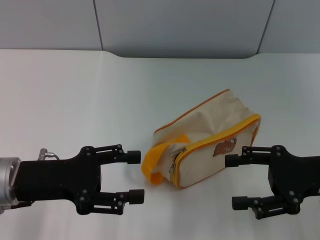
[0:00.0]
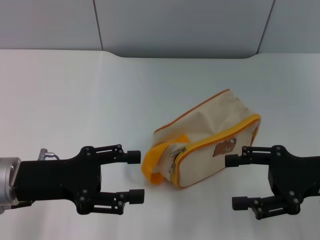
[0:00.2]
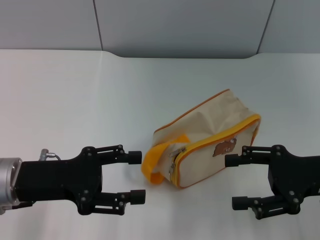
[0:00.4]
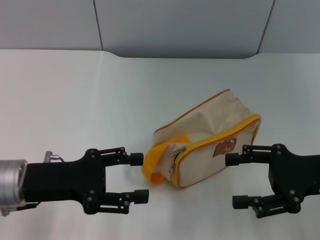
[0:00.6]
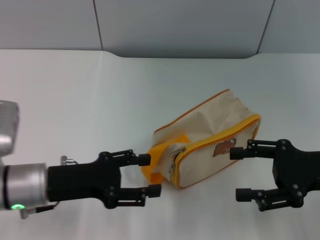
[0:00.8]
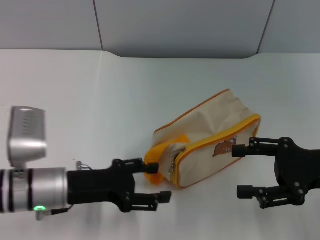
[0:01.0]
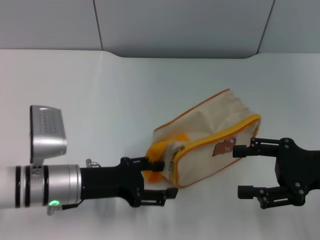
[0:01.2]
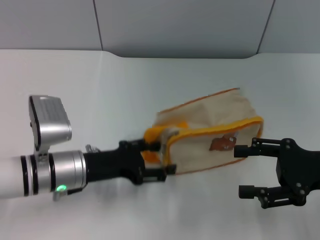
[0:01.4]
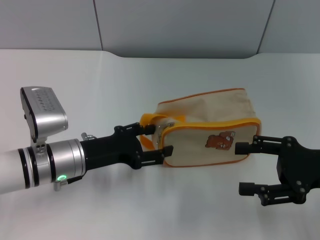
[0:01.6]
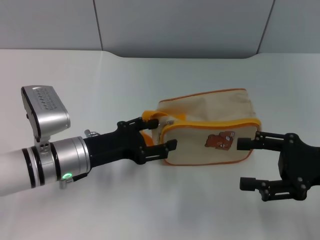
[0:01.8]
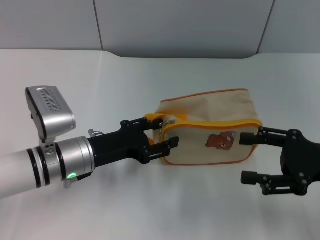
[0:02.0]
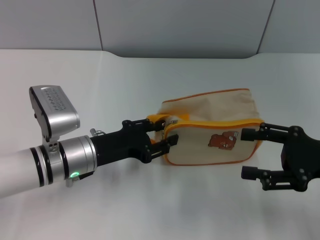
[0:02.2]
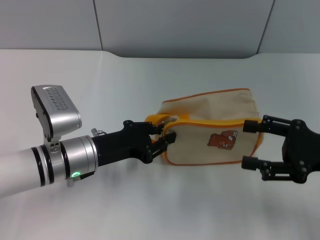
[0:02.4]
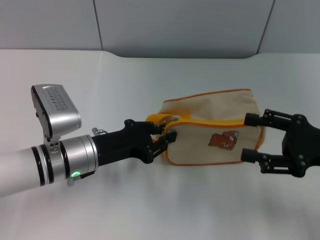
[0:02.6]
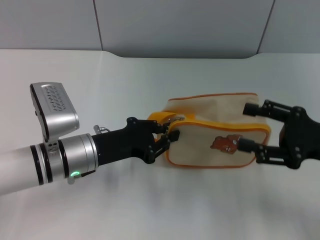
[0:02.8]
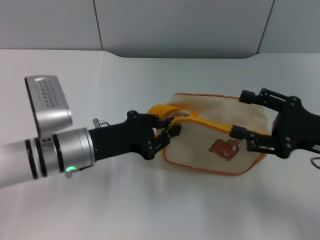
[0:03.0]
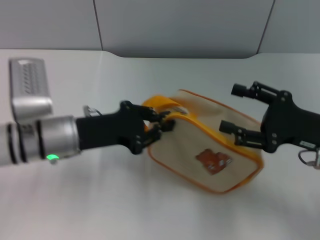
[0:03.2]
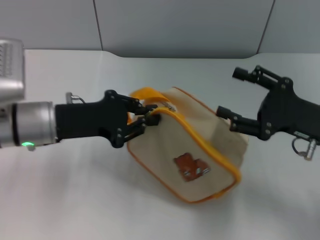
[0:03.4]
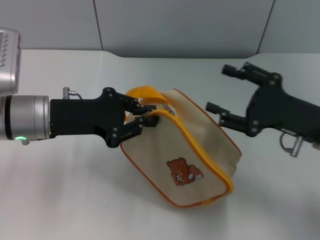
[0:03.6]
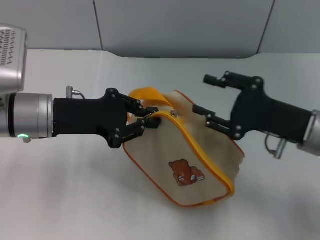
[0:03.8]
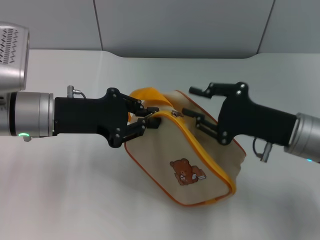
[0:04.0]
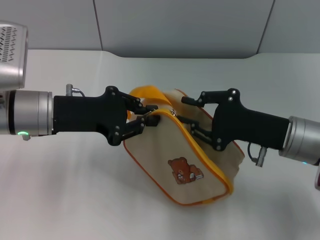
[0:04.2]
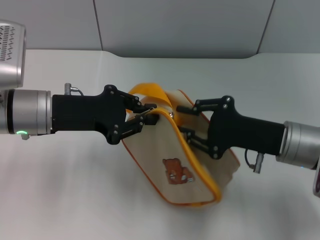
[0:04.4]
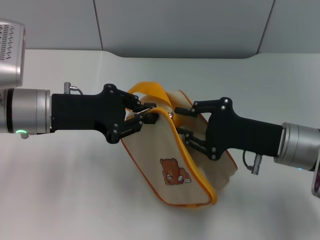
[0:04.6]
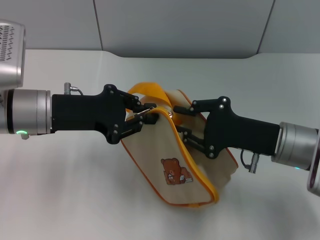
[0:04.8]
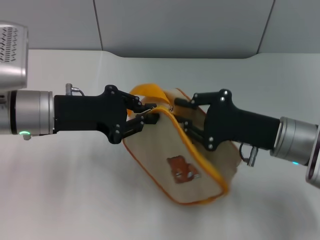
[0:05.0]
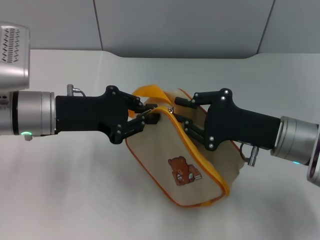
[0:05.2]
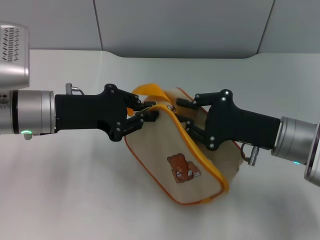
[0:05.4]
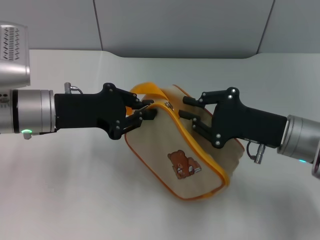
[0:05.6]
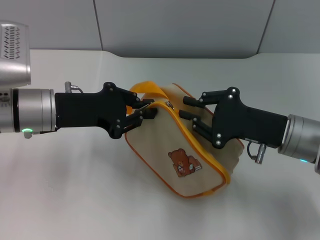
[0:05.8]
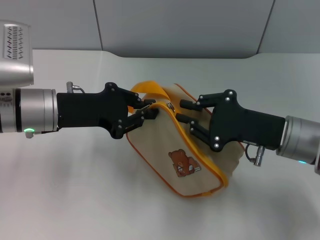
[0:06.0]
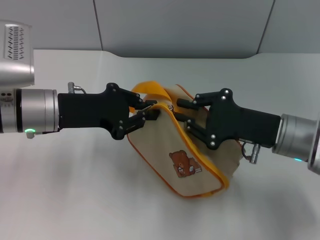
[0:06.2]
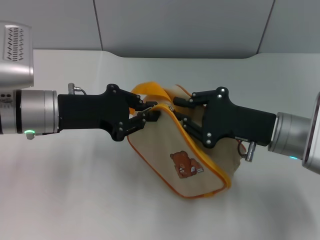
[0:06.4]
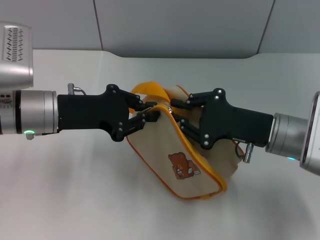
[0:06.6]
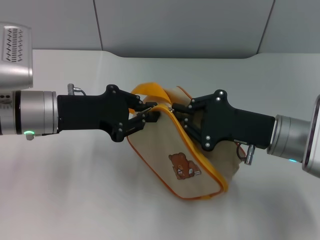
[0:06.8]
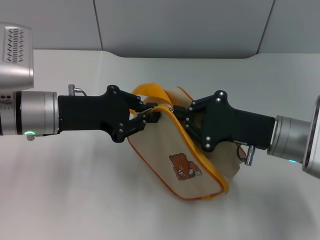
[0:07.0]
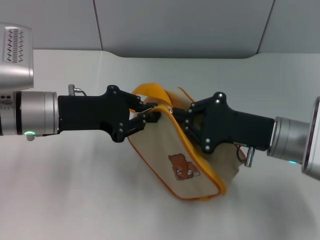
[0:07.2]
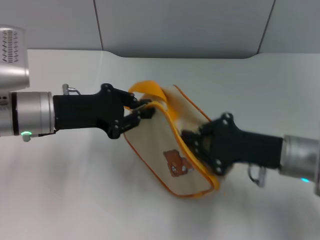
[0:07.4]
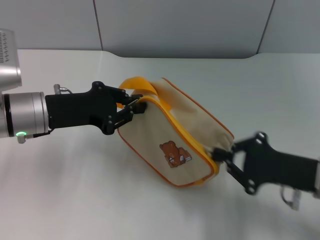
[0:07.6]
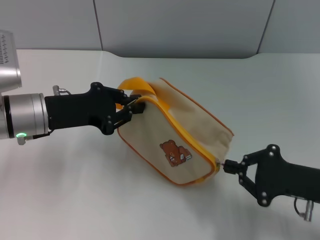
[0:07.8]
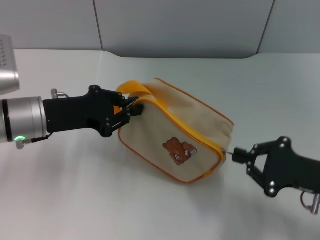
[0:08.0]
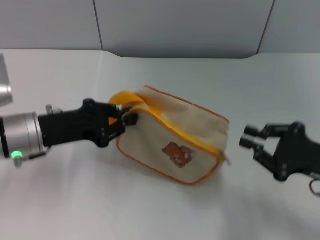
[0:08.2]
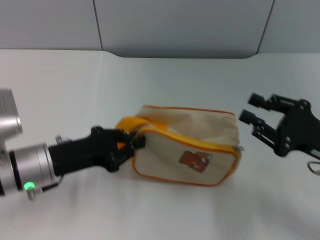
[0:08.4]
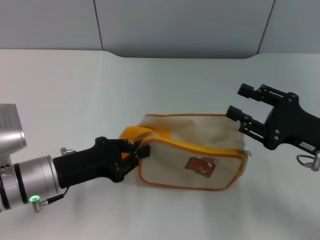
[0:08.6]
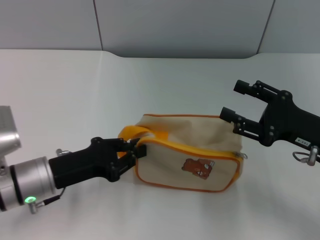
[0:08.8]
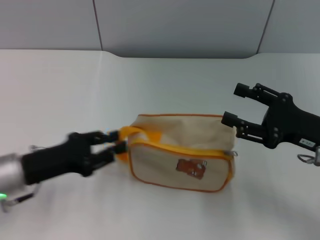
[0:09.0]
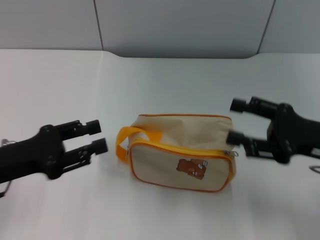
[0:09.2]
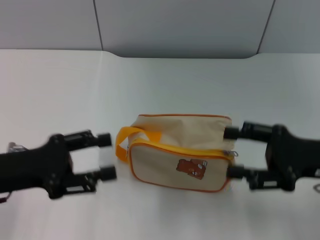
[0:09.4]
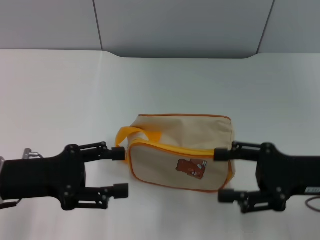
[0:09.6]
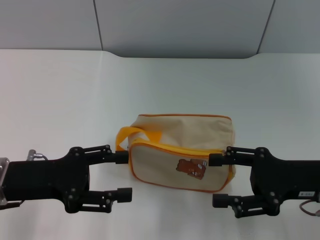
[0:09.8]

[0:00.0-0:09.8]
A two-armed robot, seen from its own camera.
Step, 0:00.0 to 0:03.0: Pick up the bag with left gripper.
Step, 0:03.4 to 0:08.0: Unzip the zipper of bag with right gripper.
Step, 0:08.2 to 0:09.0: Place the bag on the table with left gripper.
0:00.0 to 0:01.4: The left gripper heads to the right and downward, covering some 10 cm.
0:01.4 to 0:02.8: The left gripper closes up.
0:02.8 to 0:04.2: The left gripper moves upward, approximately 10 cm. The right gripper is displaced to the left by about 10 cm, and closes its fingers.
0:04.2 to 0:07.0: The grippers move only a little.
0:07.0 to 0:08.4: The left gripper moves downward and backward, roughly 10 cm. Meanwhile the right gripper travels to the right and backward by roughly 10 cm.
0:08.4 to 0:09.8: The right gripper opens its fingers. The left gripper shifts by some 5 cm, and opens.

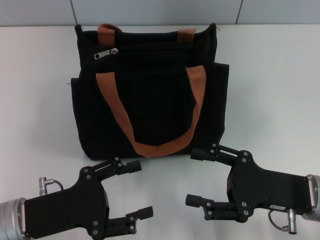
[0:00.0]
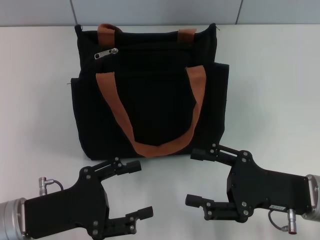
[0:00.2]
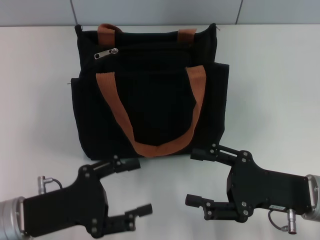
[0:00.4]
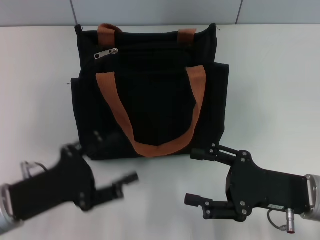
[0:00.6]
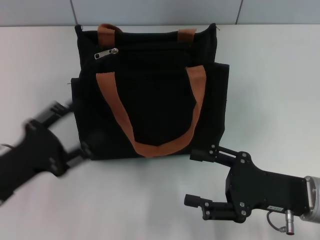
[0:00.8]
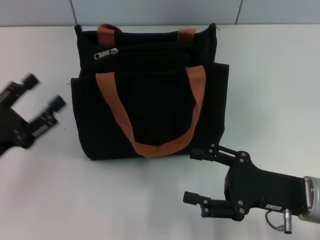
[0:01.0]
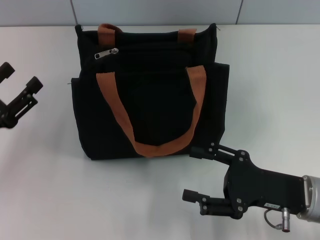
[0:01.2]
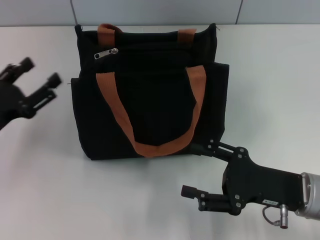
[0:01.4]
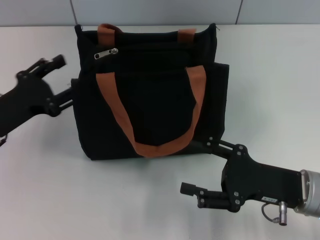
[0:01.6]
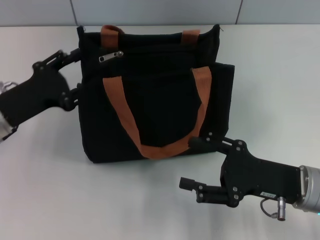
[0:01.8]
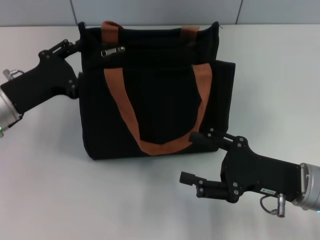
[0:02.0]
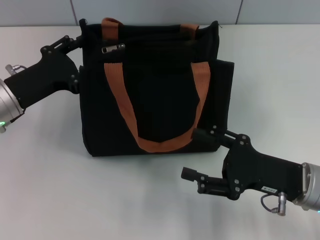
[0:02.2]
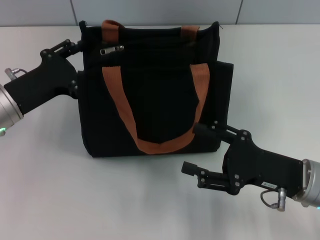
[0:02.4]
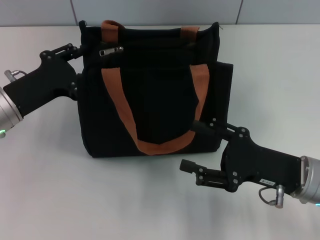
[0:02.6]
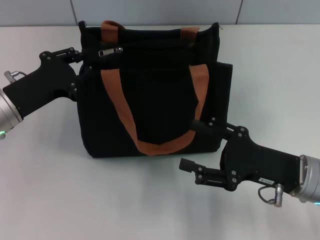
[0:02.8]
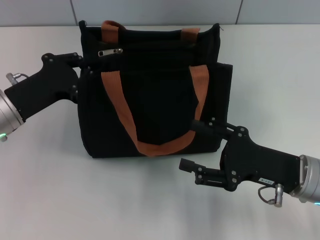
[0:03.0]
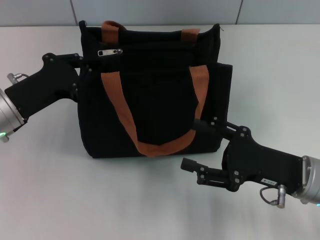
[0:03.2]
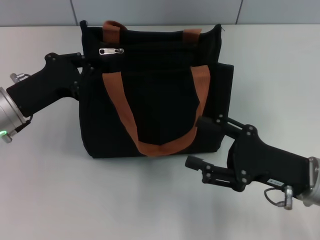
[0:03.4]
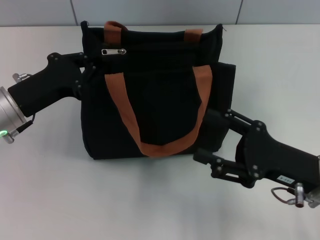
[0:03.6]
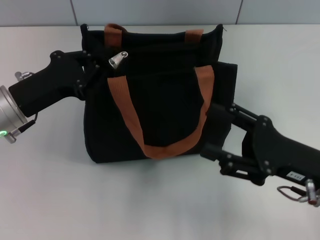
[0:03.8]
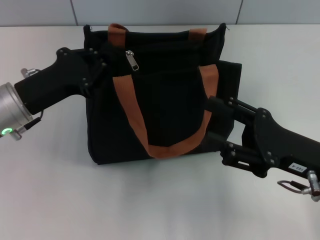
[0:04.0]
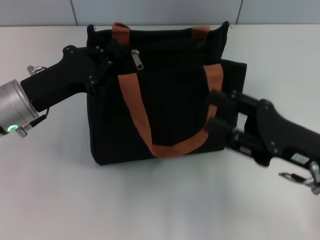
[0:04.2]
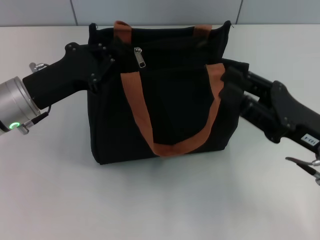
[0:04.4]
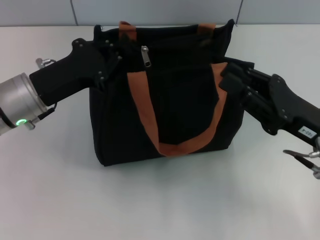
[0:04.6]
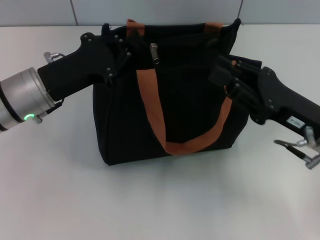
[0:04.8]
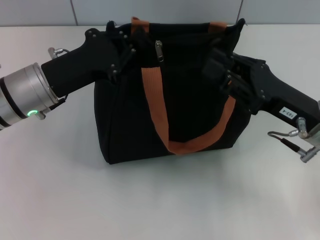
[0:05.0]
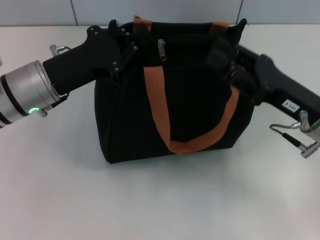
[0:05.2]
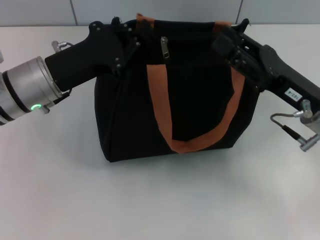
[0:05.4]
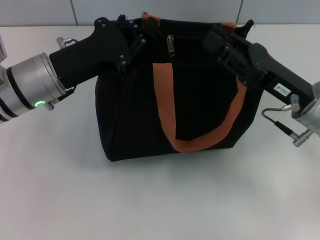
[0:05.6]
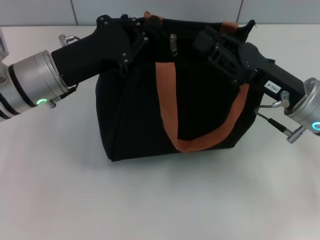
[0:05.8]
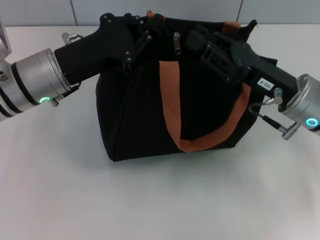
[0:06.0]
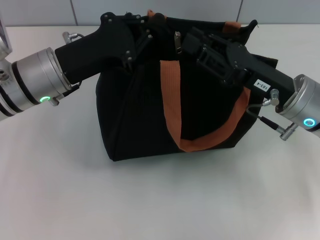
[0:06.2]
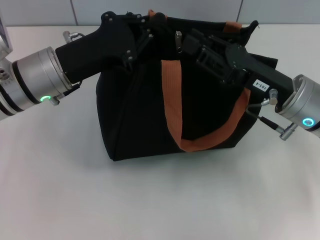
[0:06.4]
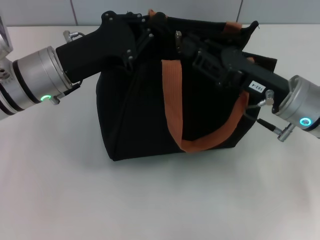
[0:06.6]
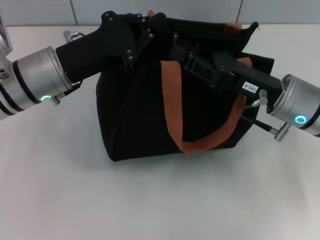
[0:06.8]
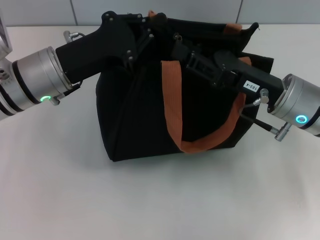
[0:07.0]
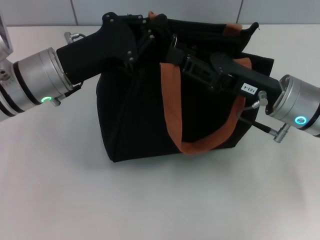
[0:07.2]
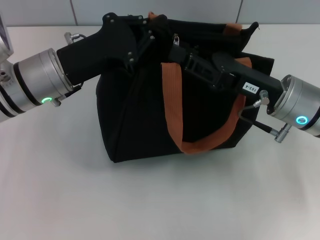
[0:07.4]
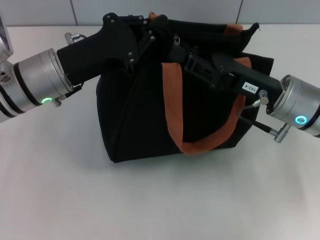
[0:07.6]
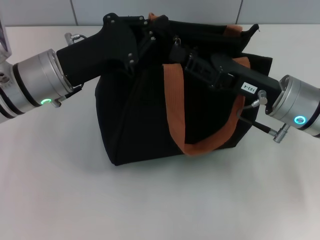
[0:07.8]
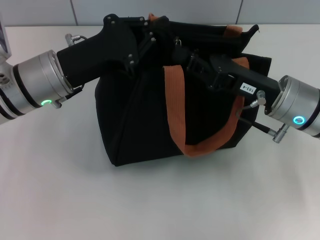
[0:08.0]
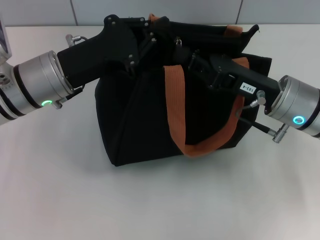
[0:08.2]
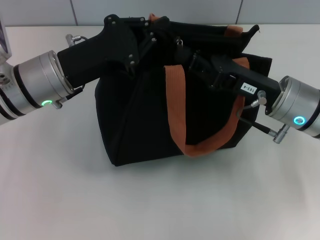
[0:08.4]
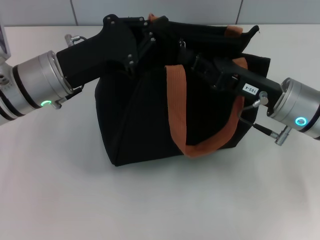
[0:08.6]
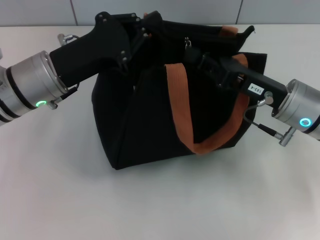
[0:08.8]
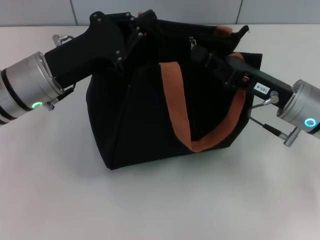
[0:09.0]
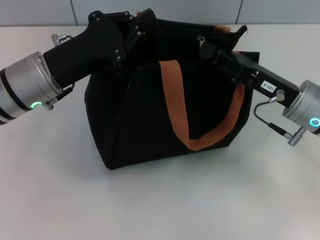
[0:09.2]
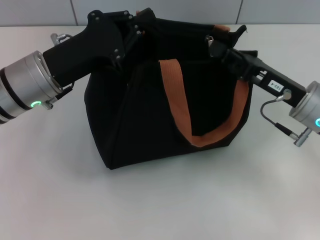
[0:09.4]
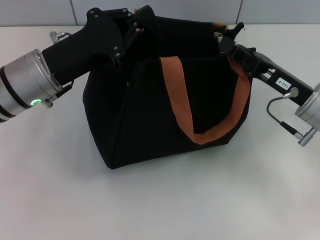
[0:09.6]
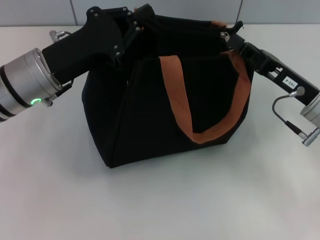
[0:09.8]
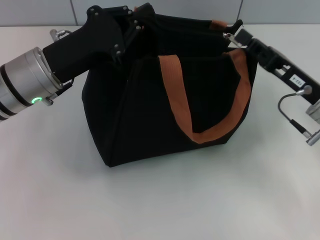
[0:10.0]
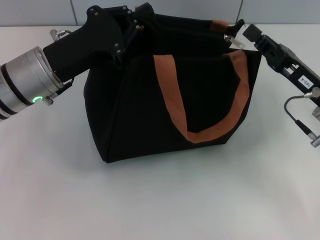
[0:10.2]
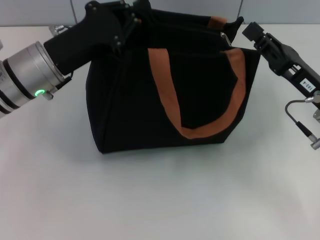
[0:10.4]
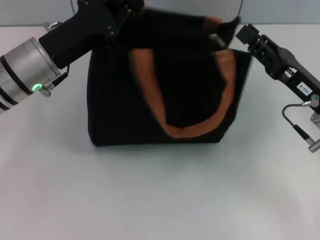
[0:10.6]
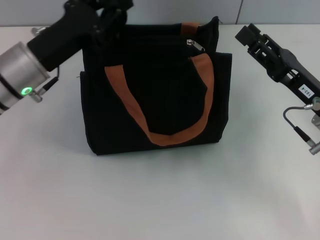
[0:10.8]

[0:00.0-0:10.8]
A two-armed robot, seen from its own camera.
Step, 0:00.0 to 0:10.0: Pull up the zipper with your right hand.
Step, 0:10.2 to 0:10.4: Grab the zipper with your left hand.
0:00.0 to 0:01.6: The left gripper goes approximately 10 cm forward and to the left.
0:01.6 to 0:03.0: The left gripper closes.
0:03.0 to 0:04.6: The right gripper closes its fingers.
0:04.6 to 0:06.2: The right gripper travels forward by some 5 cm.
0:06.2 to 0:07.8: The grippers stay close to where they were, moving slightly.
0:07.8 to 0:09.2: The right gripper closes up.
0:09.2 to 0:10.8: The right gripper opens up.

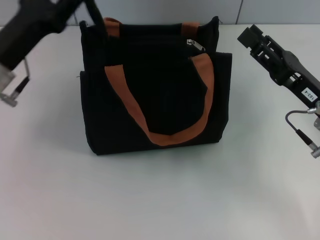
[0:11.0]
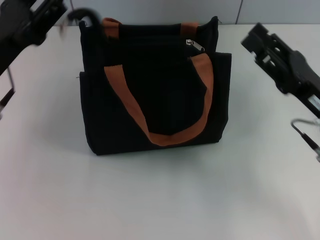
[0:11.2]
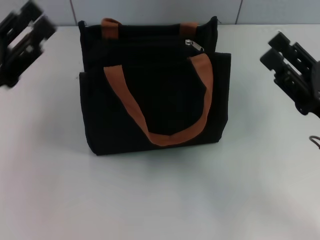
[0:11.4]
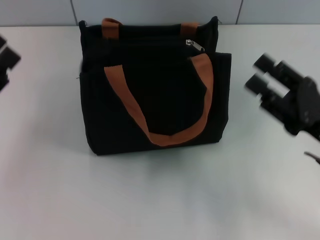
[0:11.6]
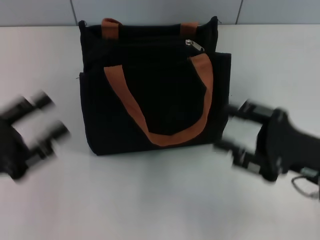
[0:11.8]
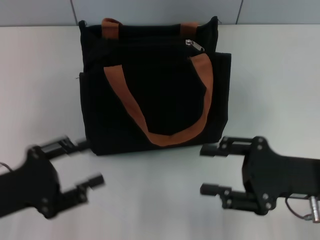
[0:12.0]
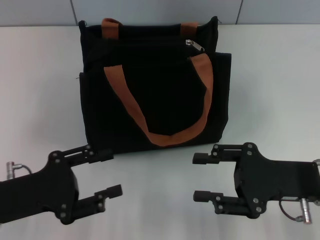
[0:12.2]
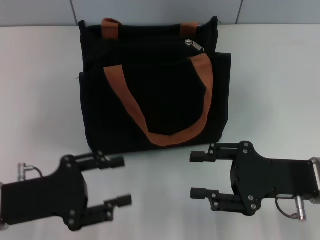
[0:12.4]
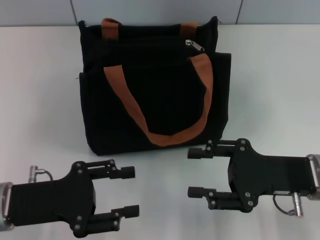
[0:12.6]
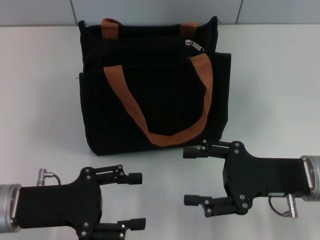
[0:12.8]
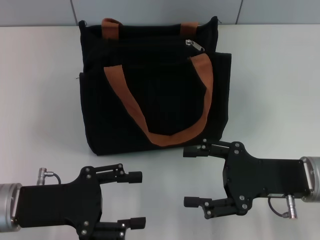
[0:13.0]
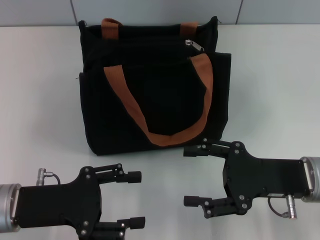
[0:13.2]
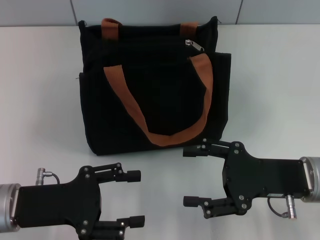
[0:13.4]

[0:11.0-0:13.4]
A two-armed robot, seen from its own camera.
0:11.0 to 0:12.2: The left gripper moves backward and downward, approximately 15 cm, and opens its fingers.
0:12.2 to 0:13.4: The grippers stay close to where they were, moving slightly.
